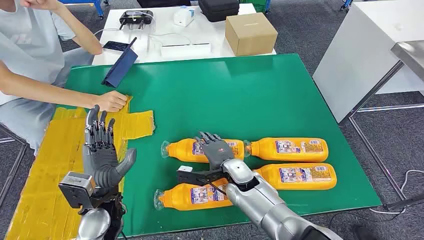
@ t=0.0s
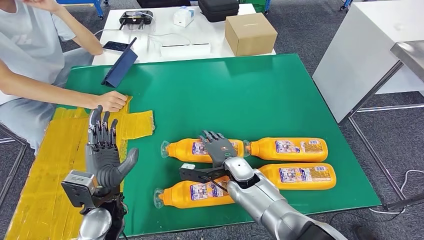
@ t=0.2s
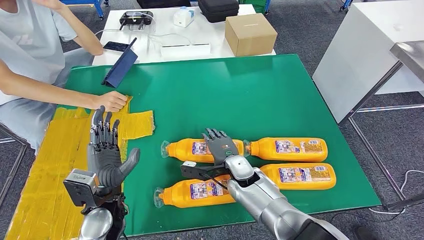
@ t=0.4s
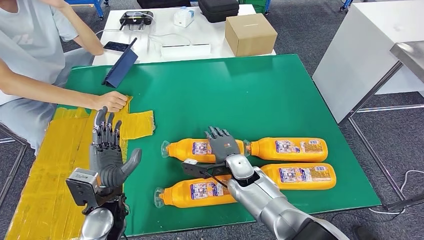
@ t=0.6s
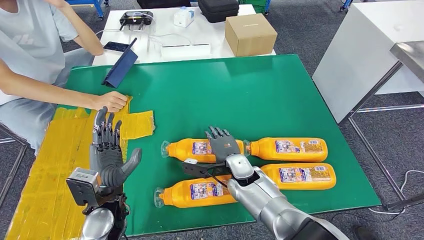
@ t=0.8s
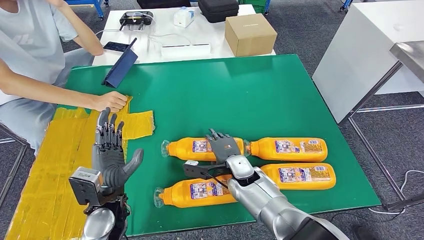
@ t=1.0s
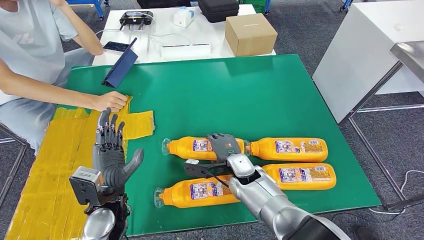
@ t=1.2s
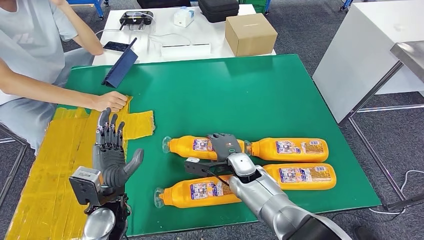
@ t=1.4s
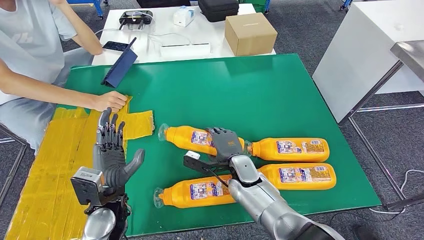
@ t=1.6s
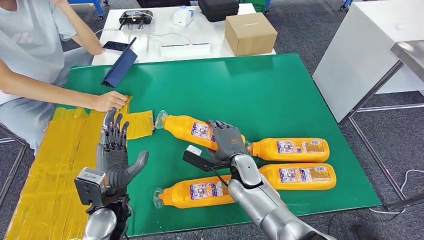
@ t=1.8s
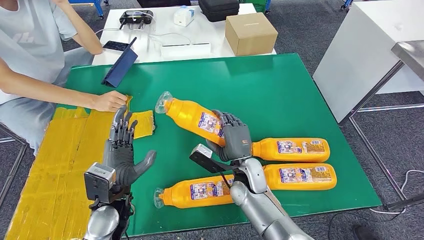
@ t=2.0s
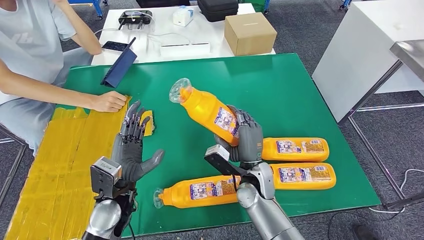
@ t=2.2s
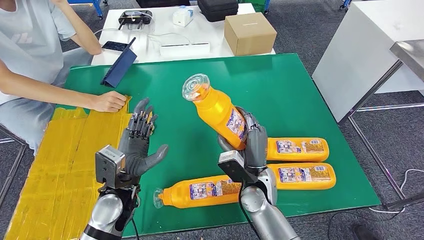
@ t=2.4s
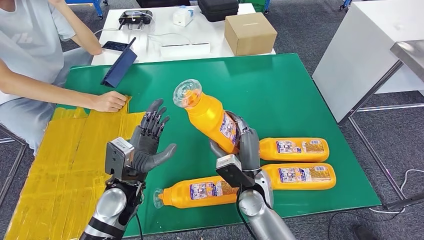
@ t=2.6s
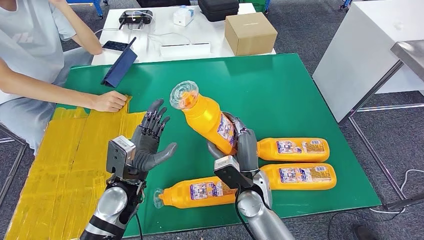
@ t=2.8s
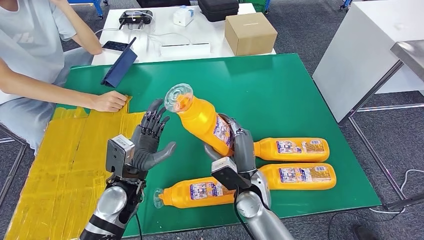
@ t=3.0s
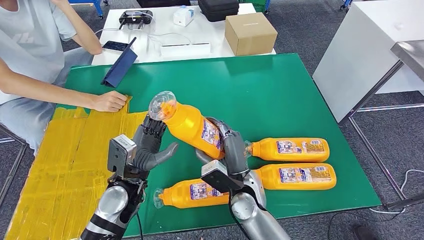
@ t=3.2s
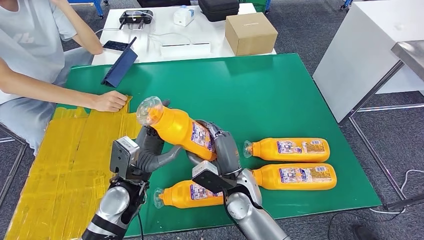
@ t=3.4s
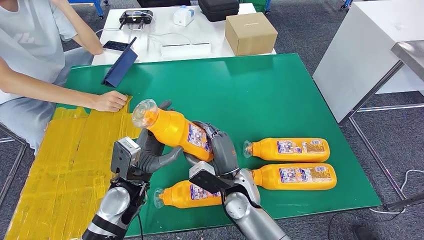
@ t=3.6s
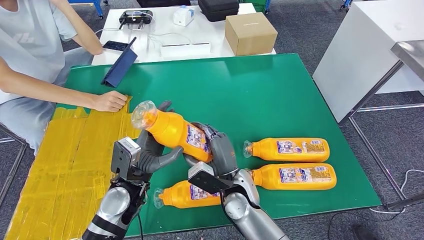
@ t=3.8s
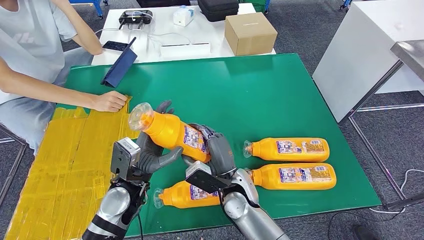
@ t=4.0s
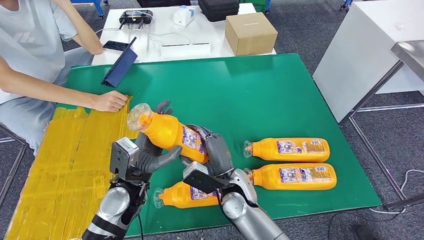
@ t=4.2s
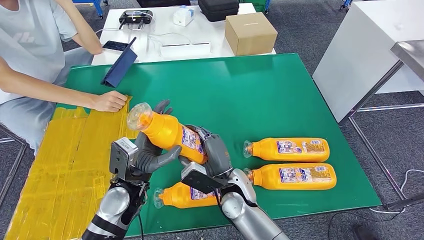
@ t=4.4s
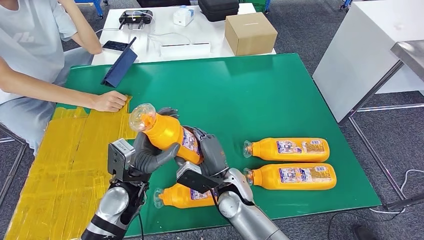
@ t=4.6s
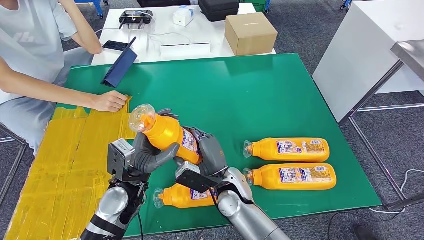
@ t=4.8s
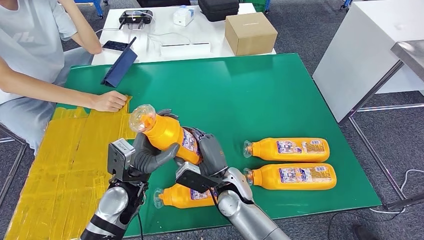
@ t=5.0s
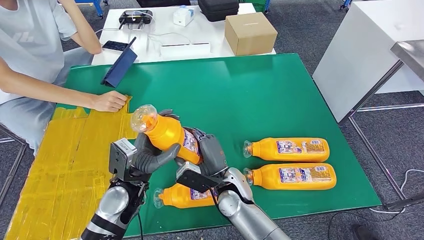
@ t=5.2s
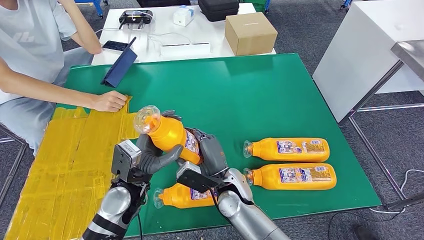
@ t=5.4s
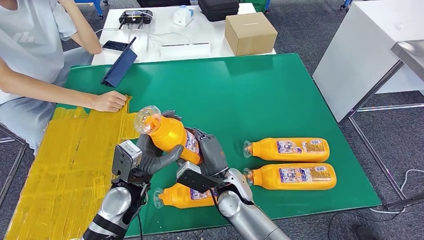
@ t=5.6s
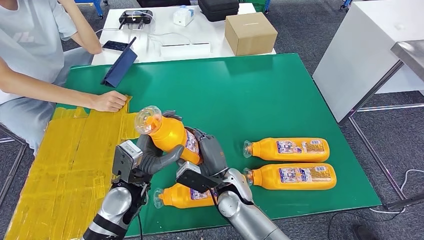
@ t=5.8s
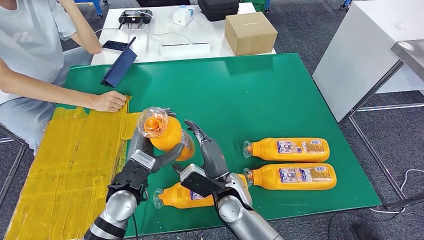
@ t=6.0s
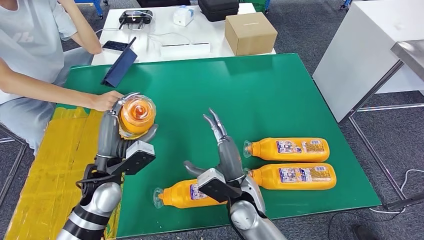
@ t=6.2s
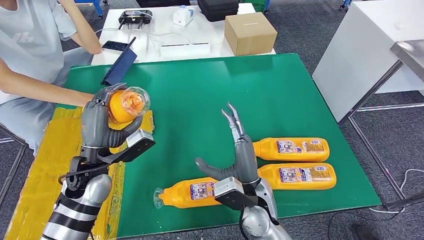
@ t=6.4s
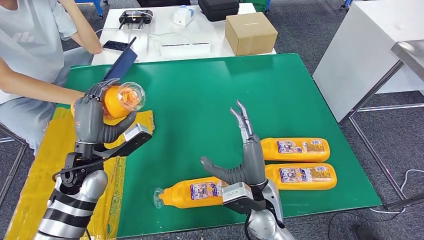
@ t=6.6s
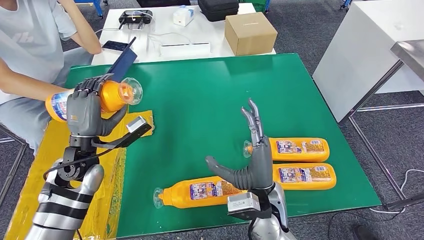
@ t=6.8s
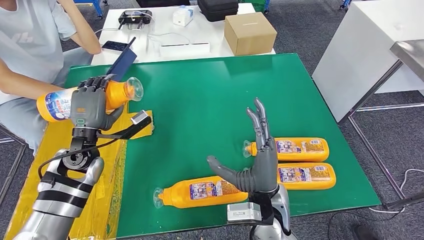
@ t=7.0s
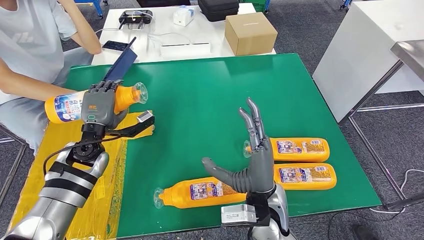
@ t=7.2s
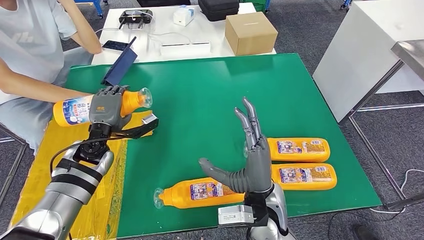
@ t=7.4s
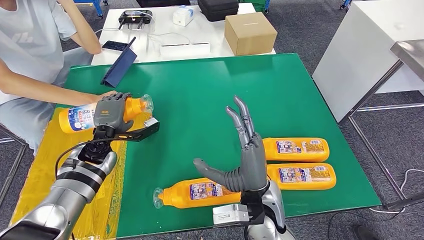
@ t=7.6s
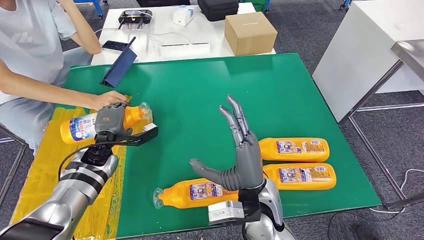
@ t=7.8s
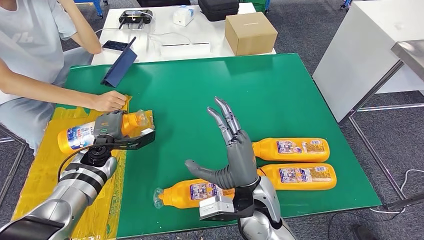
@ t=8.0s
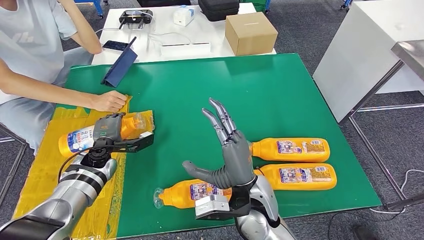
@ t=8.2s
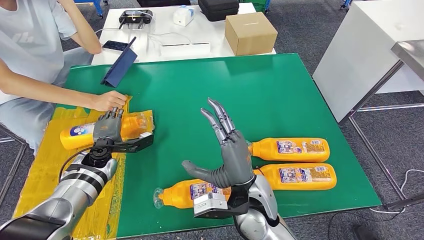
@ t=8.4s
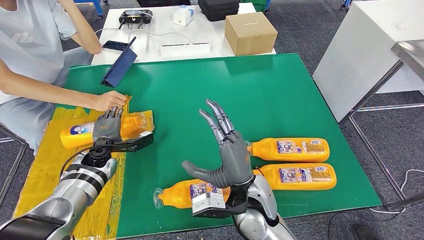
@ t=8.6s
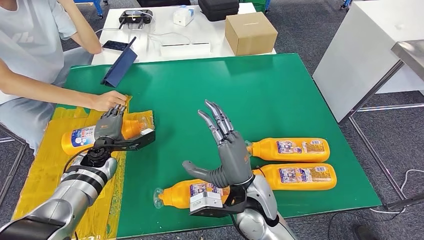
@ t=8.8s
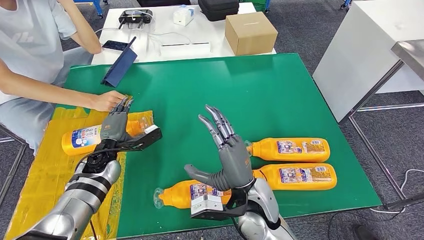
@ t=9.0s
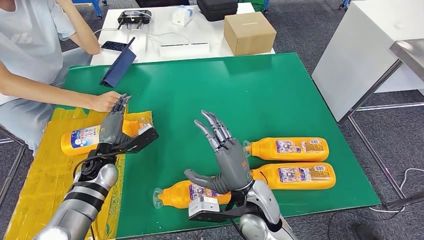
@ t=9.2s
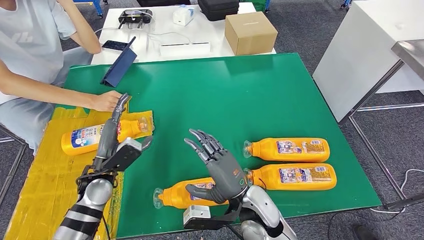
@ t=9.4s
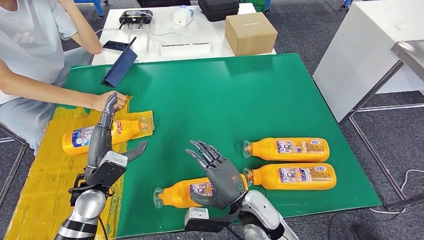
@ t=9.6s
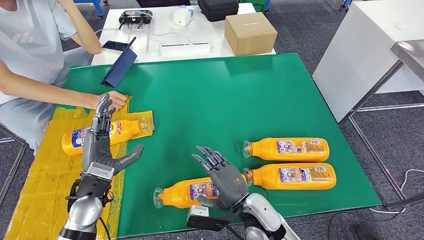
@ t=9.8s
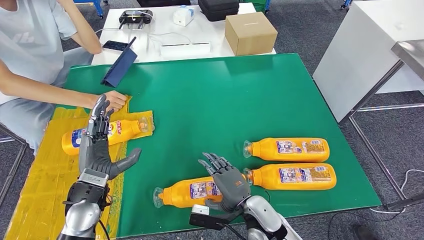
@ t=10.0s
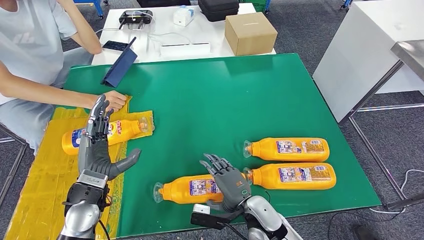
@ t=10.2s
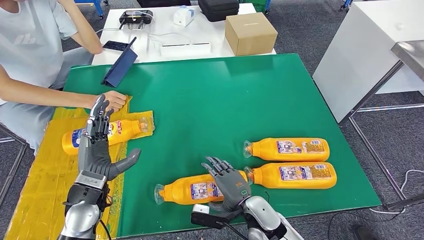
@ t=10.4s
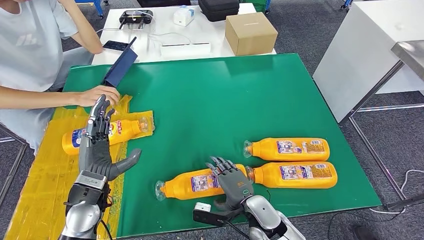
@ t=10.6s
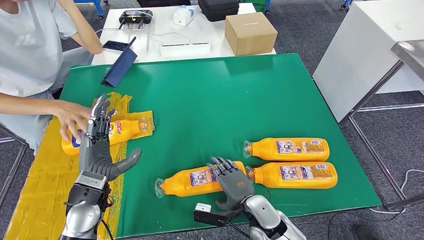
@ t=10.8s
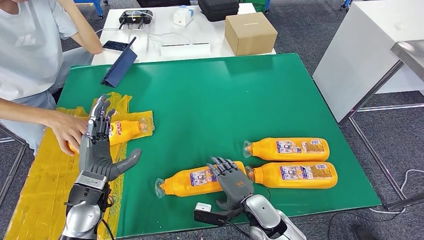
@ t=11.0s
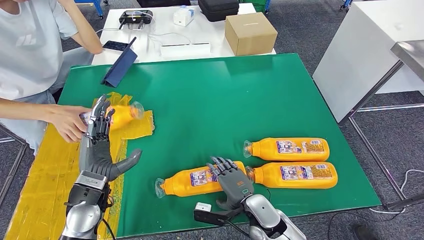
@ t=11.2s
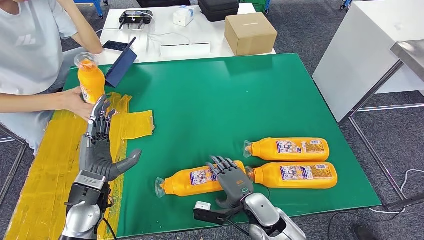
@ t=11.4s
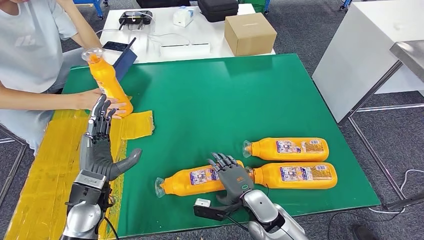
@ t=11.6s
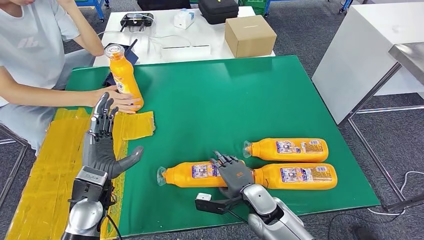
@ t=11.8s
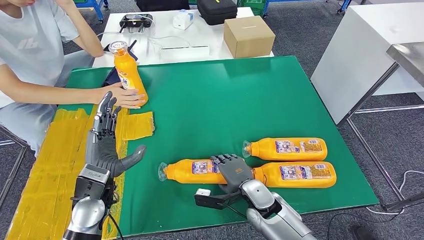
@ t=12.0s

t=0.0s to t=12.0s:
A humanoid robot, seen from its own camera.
Step, t=0.0s to t=3.6s: Take the fast-moving consumer goods bottle from the table.
Step, t=3.8s to t=8.0s: Flip the fast-moving consumer goods bottle to the front side.
t=1.6s to t=3.0s: The left hand moves about 5 cm. Meanwhile the right hand moves backward, some 5 cm.
t=3.0s to t=4.4s: The hands make only small movements.
t=6.0s to t=7.6s: The left hand goes about 15 cm forward and to the left, while the right hand travels upward and to the right by some 10 cm.
t=9.0s to t=10.4s: The left hand travels backward and upward by approximately 15 cm. The right hand is displaced downward by approximately 10 cm.

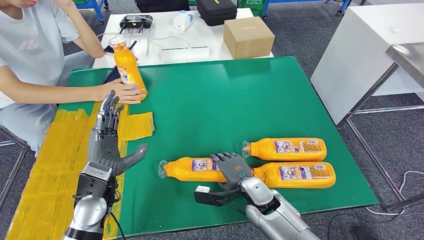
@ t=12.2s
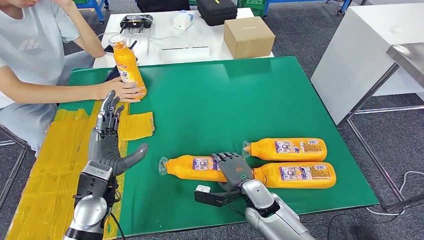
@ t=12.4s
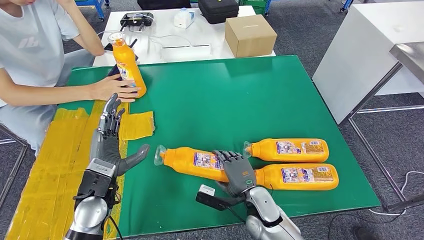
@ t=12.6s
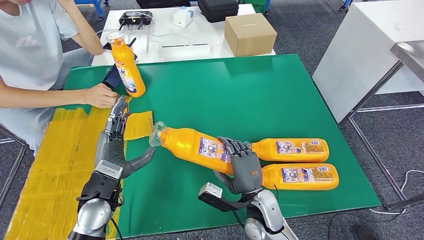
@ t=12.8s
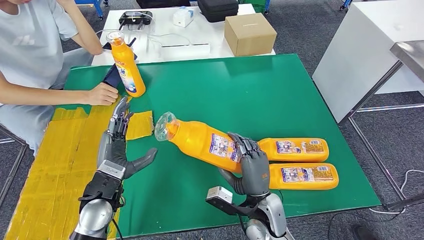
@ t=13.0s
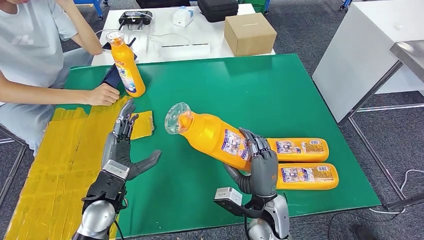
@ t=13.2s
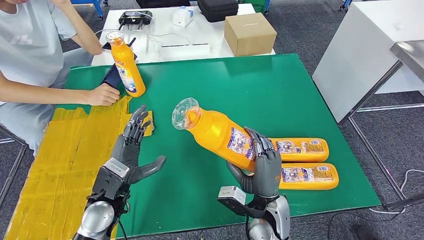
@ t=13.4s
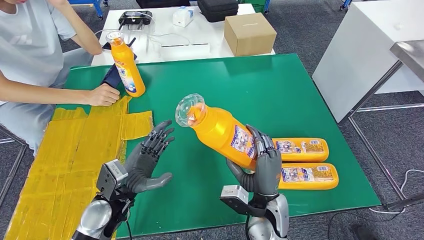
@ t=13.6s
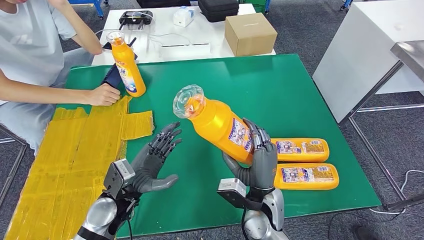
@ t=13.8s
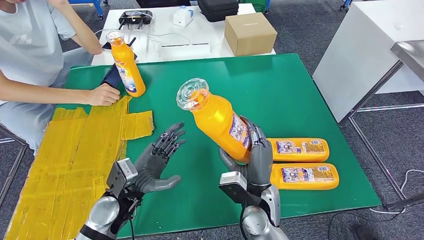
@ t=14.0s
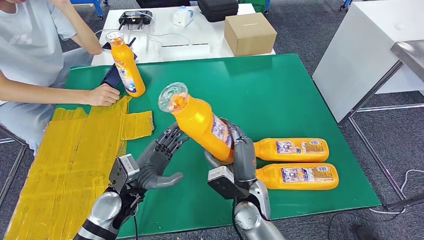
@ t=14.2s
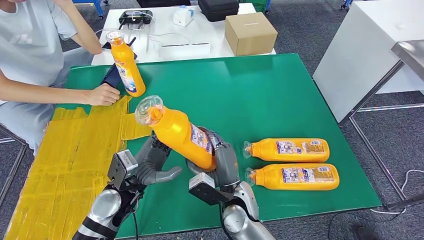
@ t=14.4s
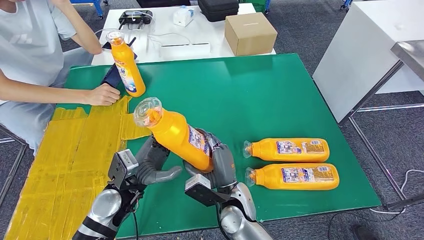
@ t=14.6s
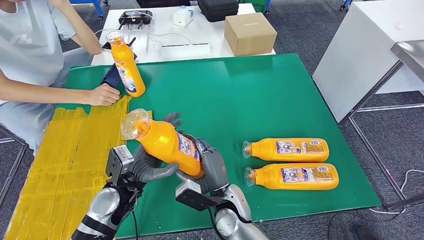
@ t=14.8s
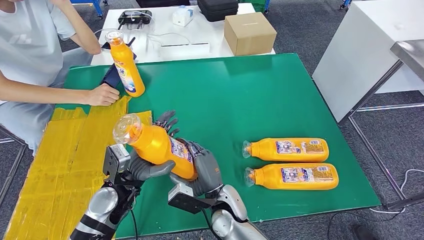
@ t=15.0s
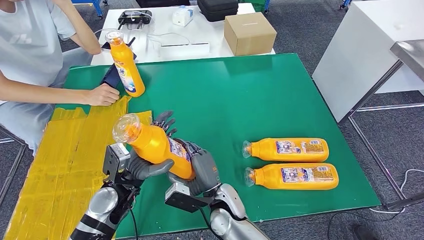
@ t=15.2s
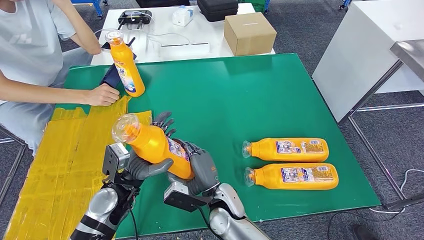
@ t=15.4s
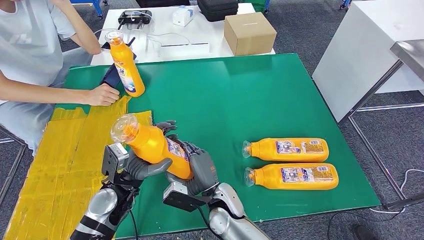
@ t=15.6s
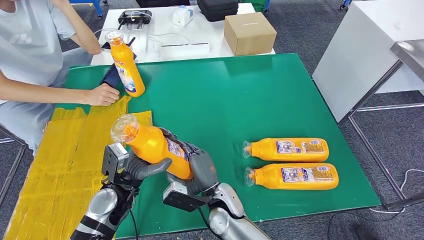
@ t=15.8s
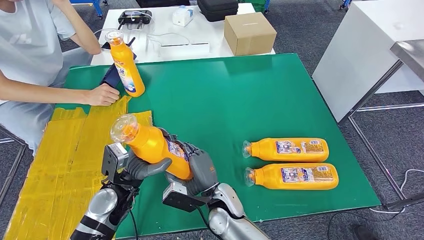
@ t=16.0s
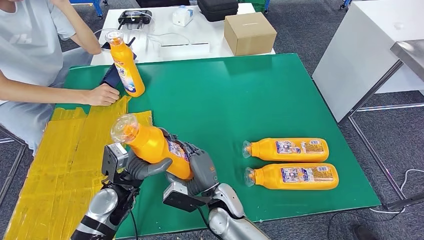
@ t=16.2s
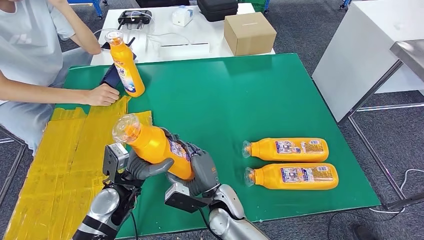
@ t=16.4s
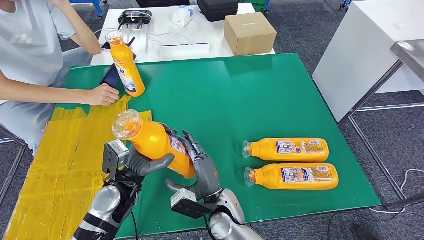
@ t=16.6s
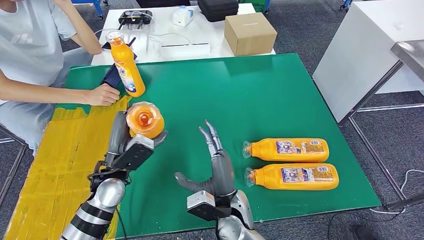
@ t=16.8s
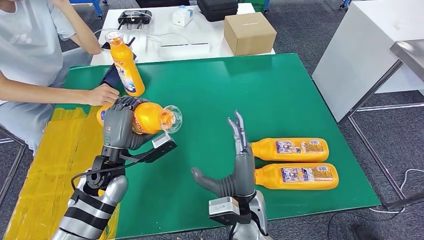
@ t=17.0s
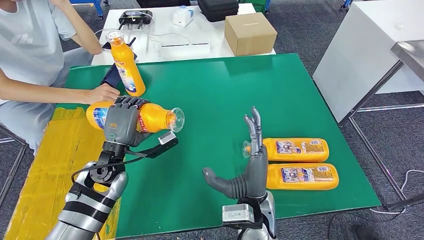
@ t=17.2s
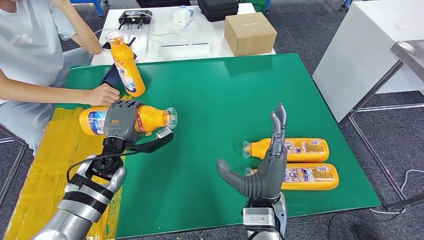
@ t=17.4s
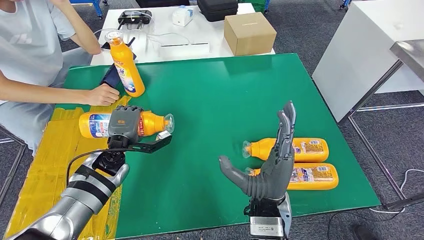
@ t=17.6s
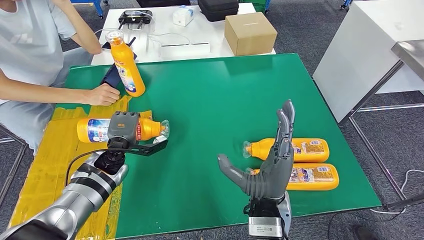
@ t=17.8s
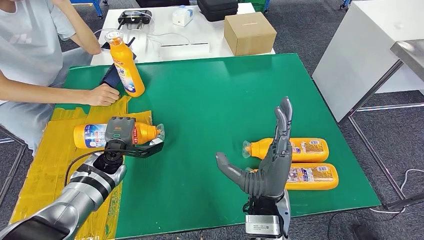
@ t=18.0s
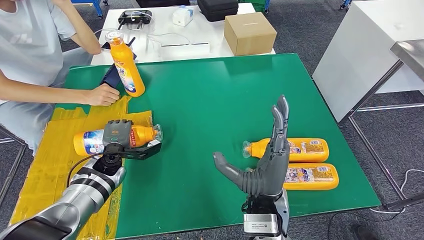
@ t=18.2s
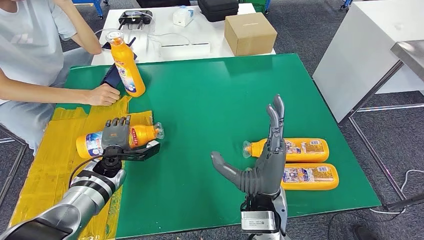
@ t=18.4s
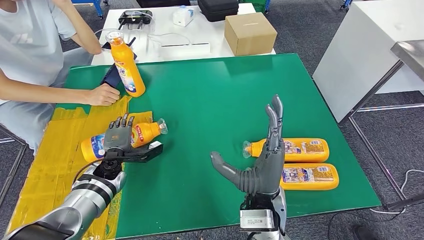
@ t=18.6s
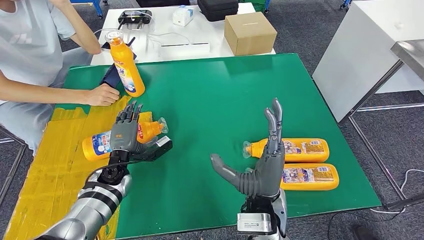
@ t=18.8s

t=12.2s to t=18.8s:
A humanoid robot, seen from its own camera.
Step, t=12.2s to t=14.2s: Pick up the fast-moving consumer goods bottle from the table.
t=13.8s to t=15.4s: The right hand heads to the left, covering about 10 cm.
t=15.4s to t=17.2s: The right hand shifts roughly 10 cm upward and to the right. The left hand shifts about 5 cm forward.
t=17.2s to t=18.8s: The left hand heads downward, covering some 10 cm.
